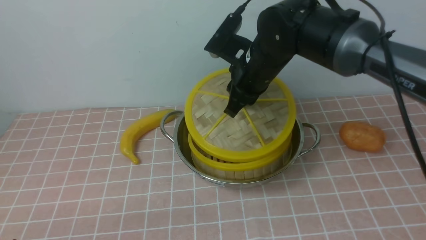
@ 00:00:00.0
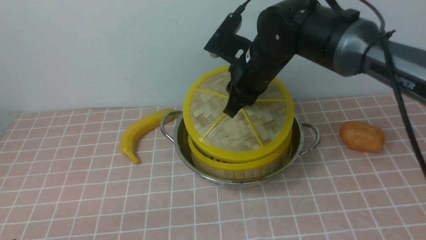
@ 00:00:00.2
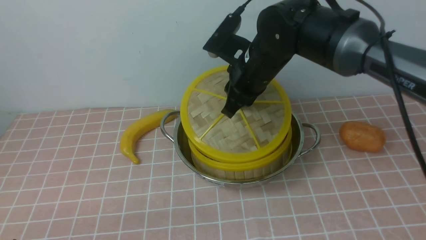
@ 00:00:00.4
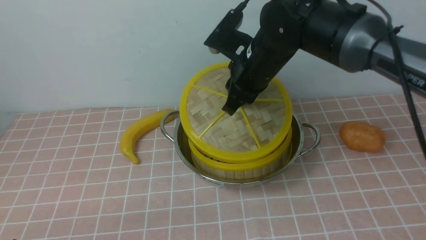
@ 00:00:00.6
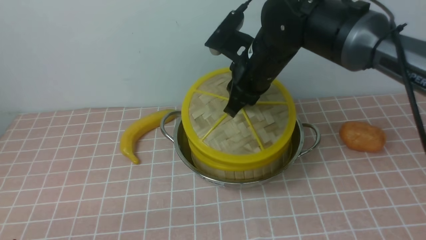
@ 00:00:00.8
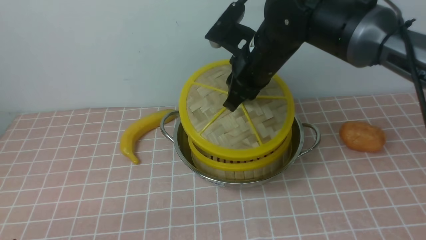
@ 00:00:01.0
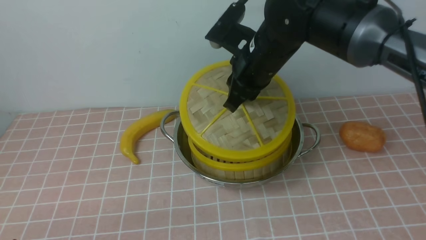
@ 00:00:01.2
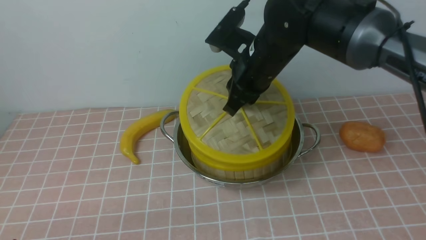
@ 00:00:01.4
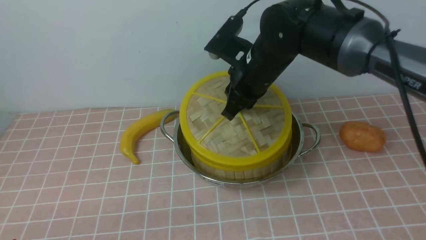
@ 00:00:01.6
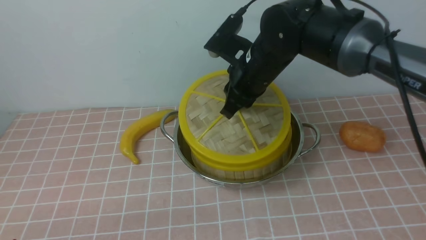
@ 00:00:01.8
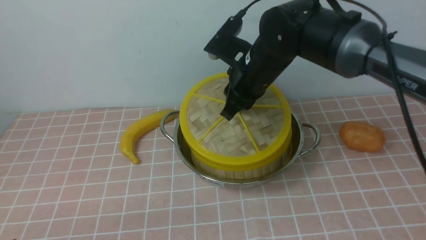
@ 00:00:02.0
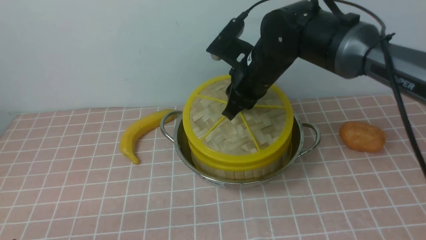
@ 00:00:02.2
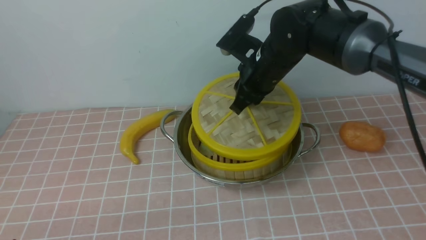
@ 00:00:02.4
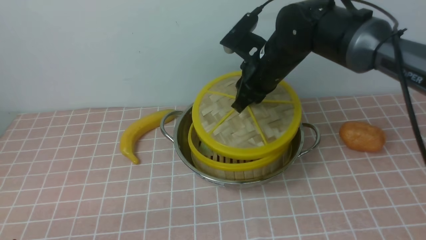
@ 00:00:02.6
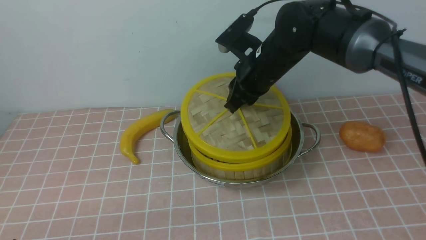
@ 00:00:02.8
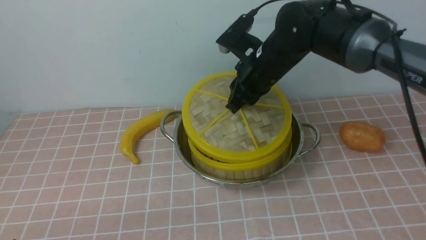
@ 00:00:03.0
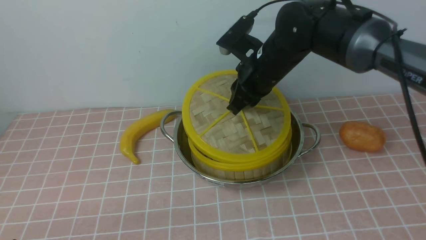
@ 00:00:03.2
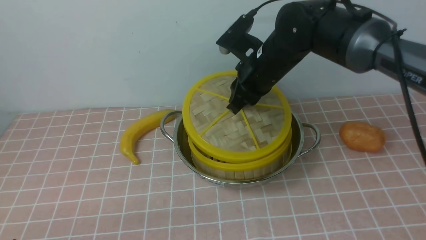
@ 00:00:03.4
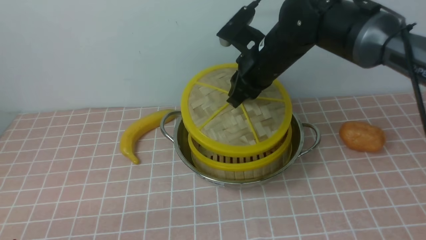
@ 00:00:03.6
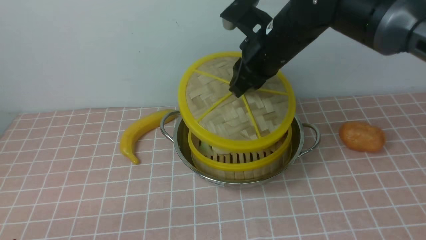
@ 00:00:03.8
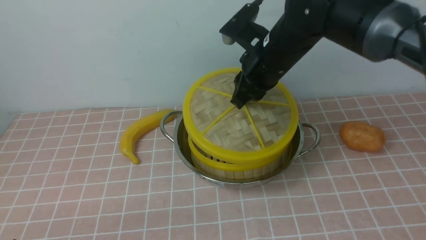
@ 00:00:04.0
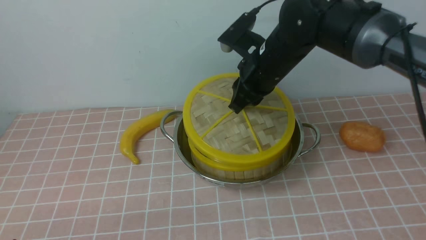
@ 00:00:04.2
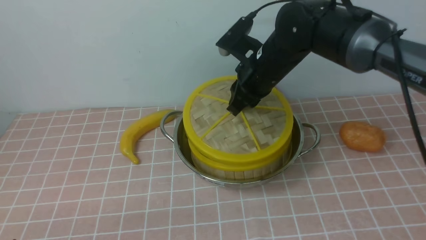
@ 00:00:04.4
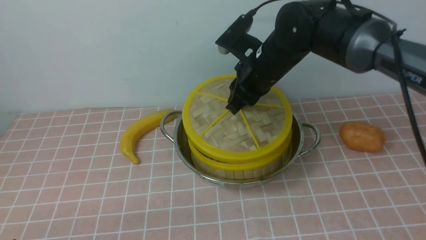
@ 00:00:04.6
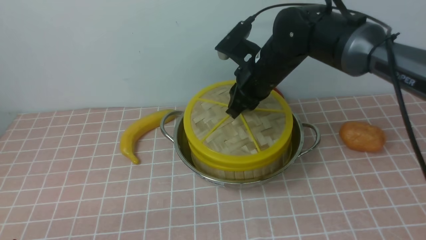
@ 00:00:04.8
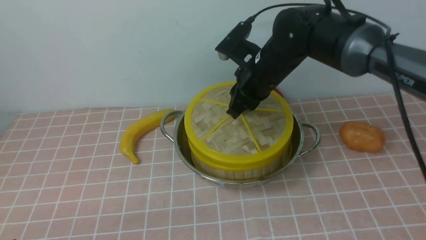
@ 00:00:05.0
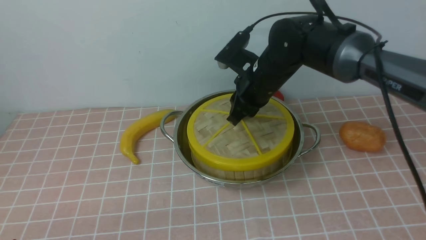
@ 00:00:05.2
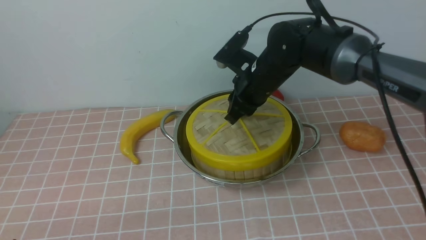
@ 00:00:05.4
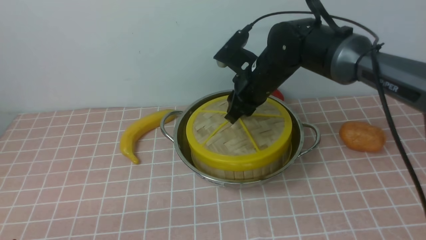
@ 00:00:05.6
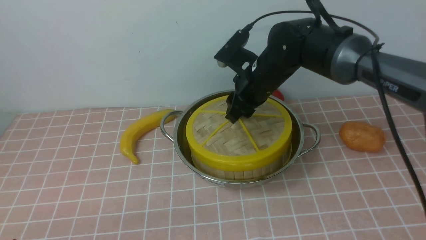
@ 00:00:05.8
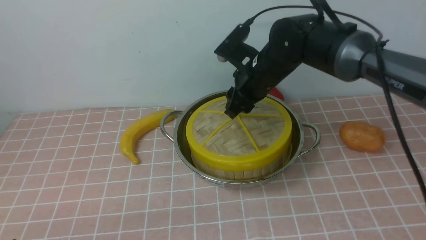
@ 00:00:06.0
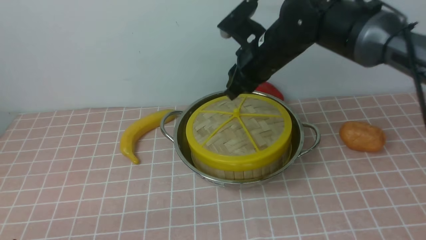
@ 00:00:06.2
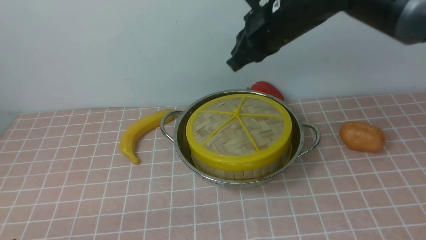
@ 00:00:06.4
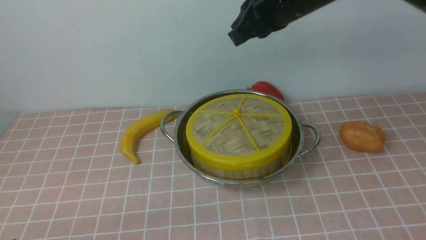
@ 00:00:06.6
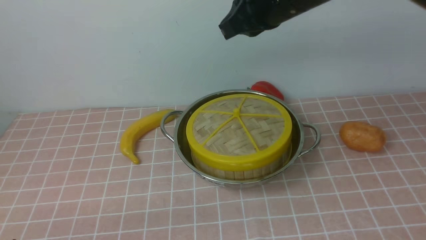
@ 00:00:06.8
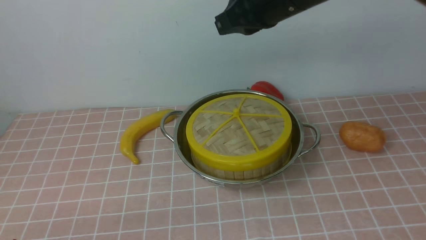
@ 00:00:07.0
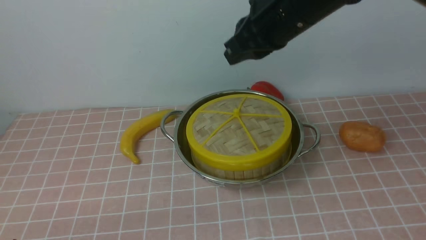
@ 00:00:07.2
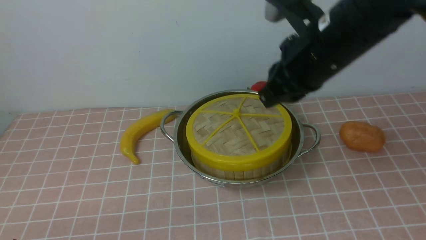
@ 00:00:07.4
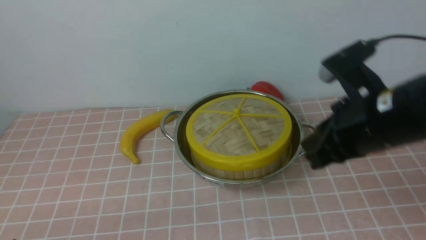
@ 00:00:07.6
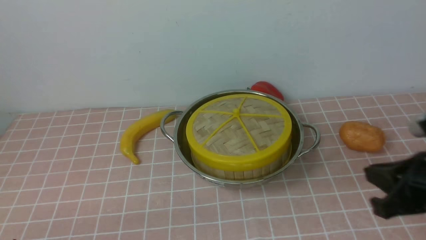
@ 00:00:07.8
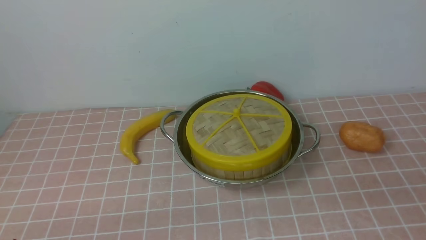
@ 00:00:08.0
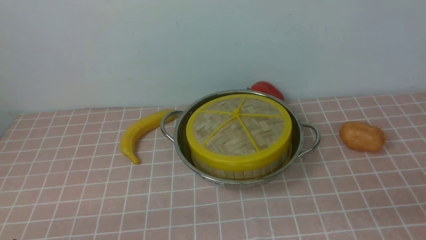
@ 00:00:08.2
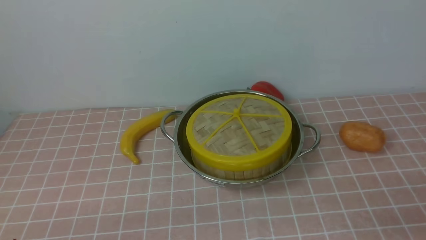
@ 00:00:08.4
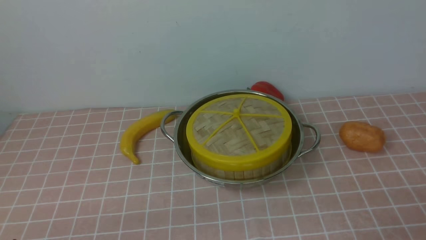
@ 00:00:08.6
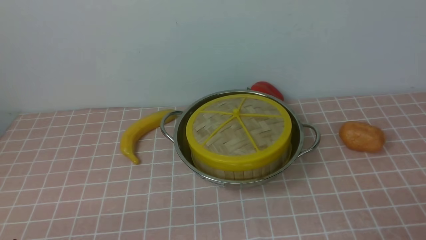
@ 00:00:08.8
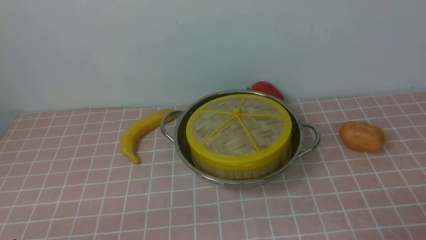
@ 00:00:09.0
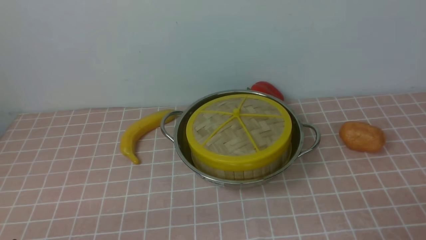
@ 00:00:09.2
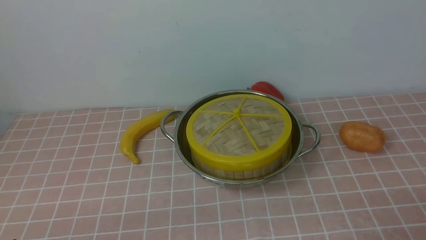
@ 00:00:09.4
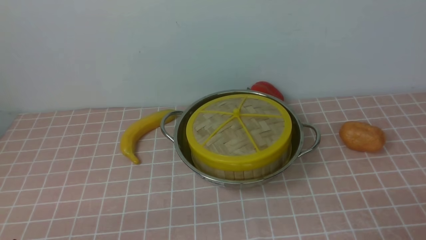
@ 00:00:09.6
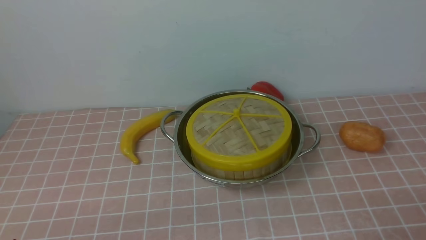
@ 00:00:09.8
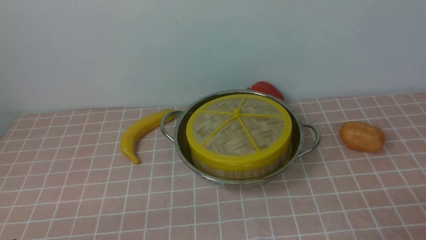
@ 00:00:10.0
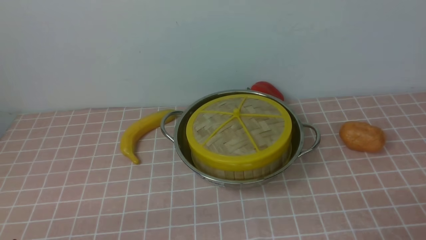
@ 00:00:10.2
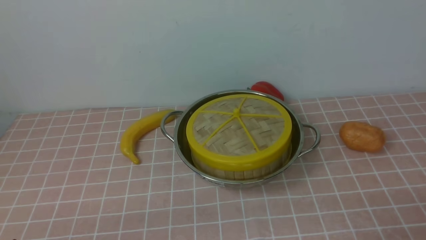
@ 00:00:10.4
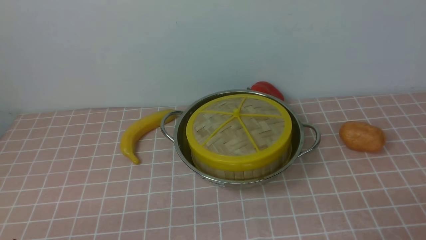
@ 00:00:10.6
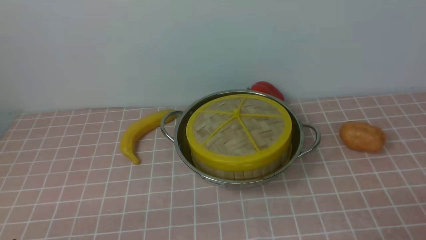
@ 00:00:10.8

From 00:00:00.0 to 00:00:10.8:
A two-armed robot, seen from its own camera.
Task of the whole recording: place the steamer in the pot on the pink tablecloth, and put the lid on the steamer.
Step, from 00:00:00.0 to 00:00:06.0: use the right arm to place the steamer lid on the steamer.
From 00:00:00.0 to 00:00:03.0: The grippers make only small movements.
From 00:00:04.6 to 00:00:06.2: The right gripper opens and closes again.
From 00:00:06.2 to 00:00:07.8: The right gripper travels backward and to the right by roughly 30 cm.
From 00:00:07.8 to 00:00:09.2: The right gripper heads backward, downward and to the right, covering approximately 15 cm, and opens its fingers.
From 00:00:09.2 to 00:00:10.8: Neither gripper changes place.
